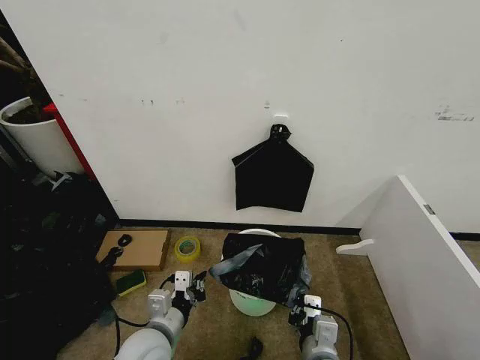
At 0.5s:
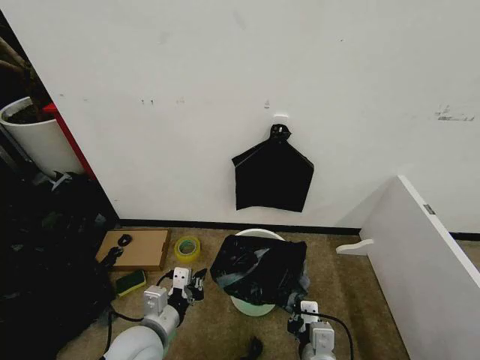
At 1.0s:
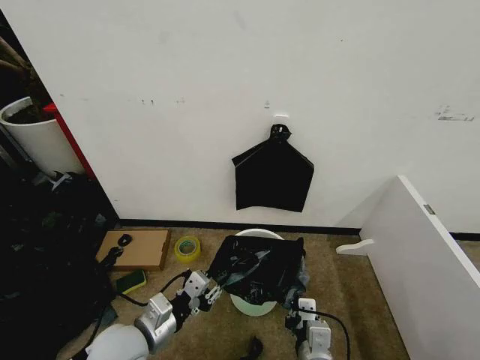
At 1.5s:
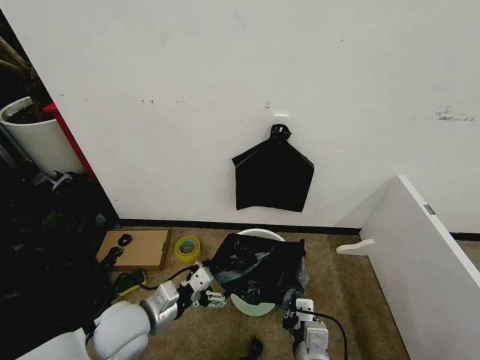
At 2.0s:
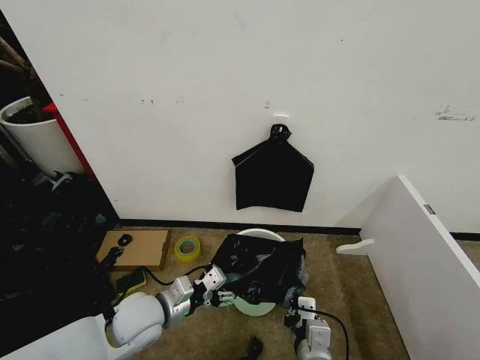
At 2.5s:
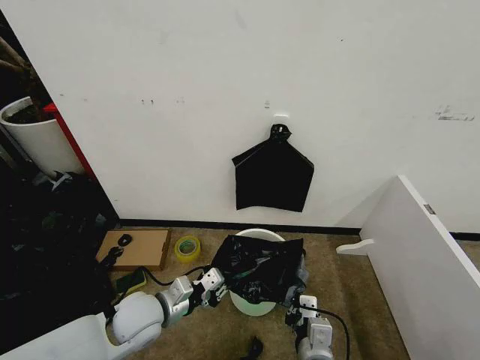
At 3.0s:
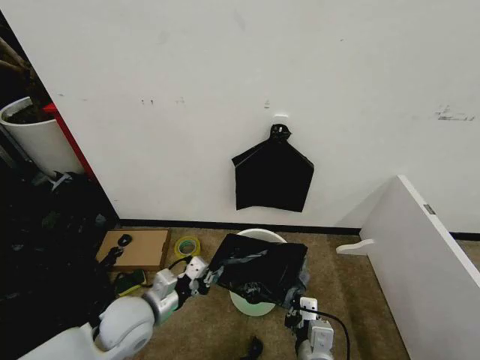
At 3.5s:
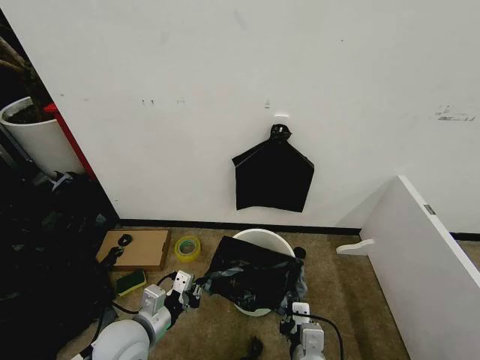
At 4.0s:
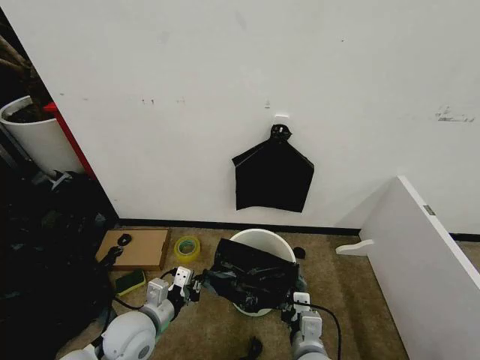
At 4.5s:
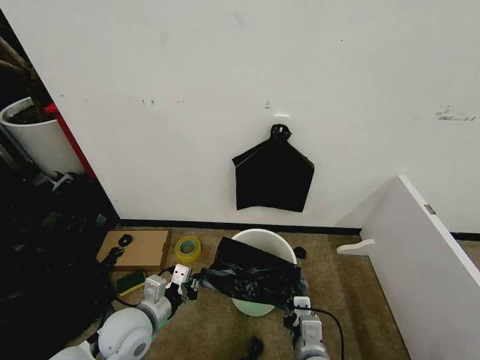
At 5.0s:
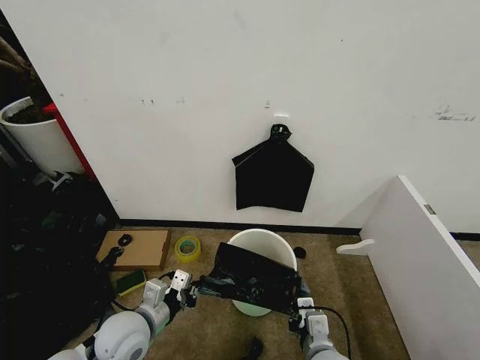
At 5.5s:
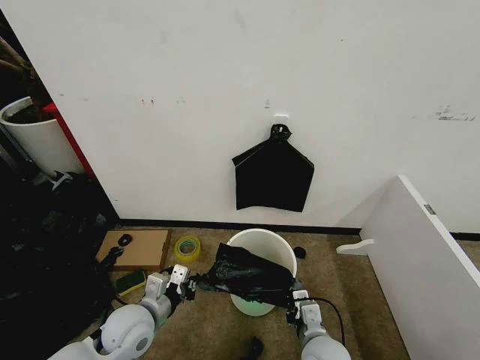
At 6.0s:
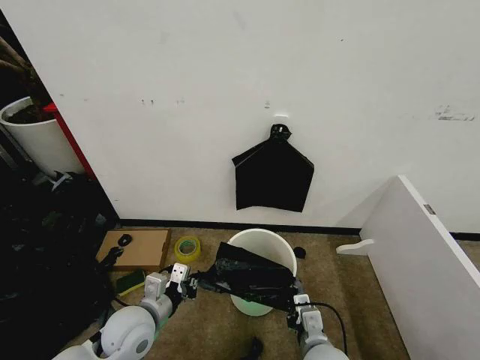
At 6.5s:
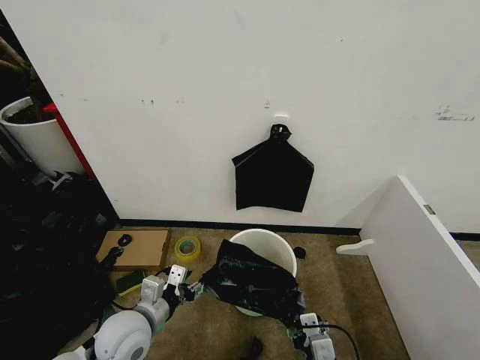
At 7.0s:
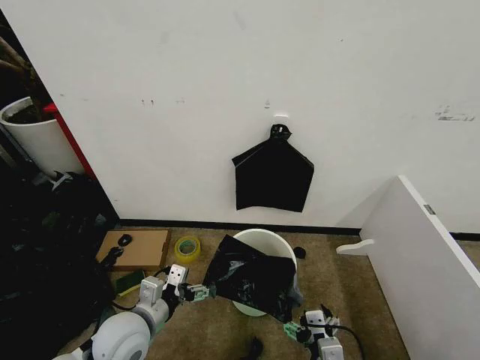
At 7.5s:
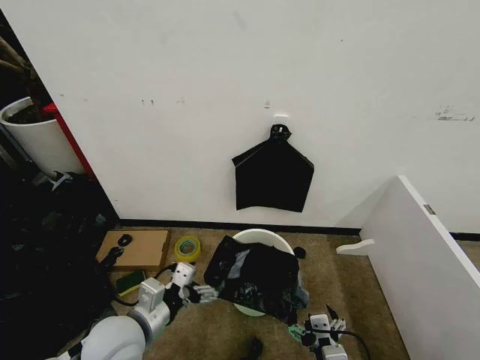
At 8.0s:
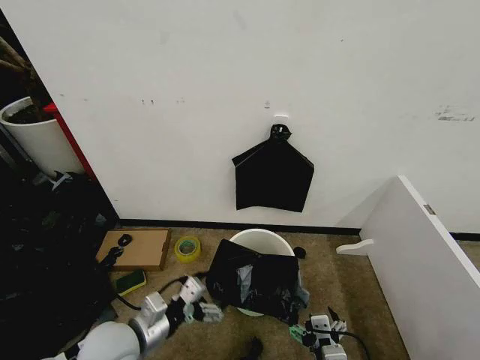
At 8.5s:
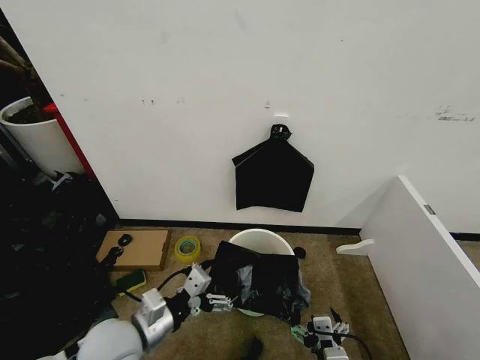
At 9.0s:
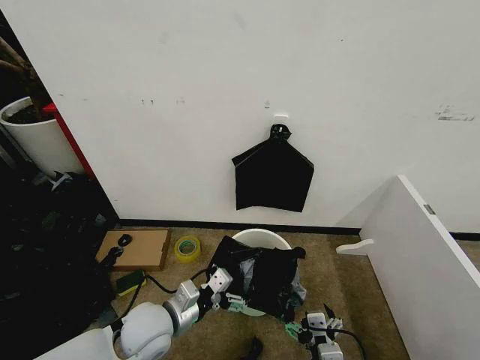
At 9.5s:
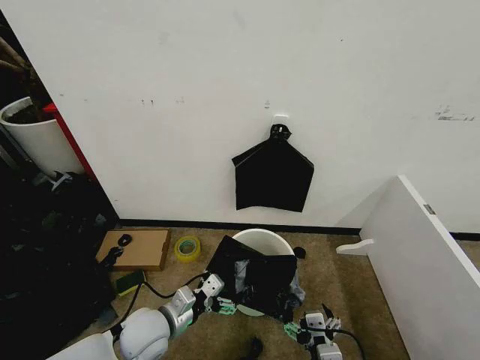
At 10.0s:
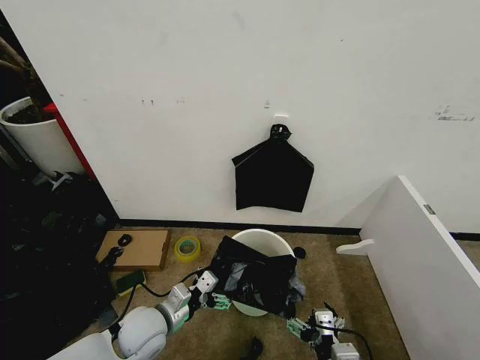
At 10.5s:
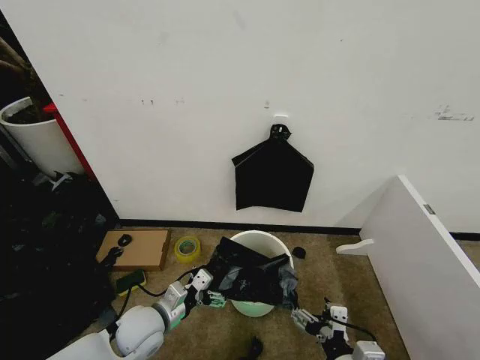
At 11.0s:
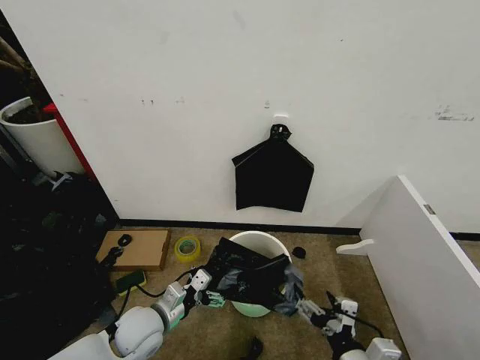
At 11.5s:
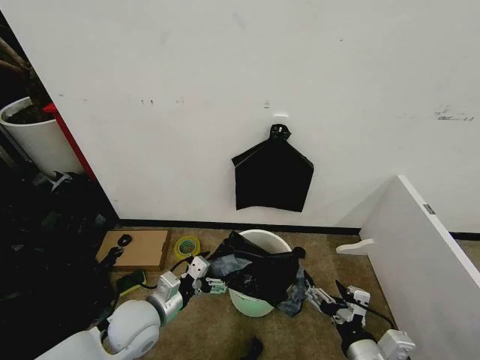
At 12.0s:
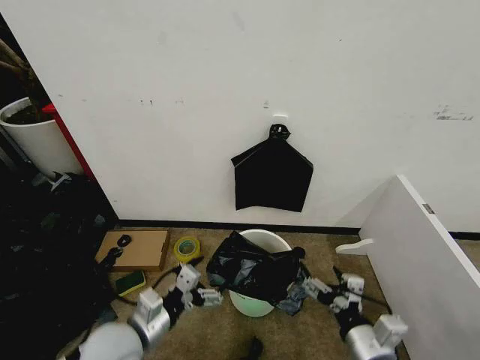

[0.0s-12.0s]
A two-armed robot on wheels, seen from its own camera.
Task of the whole recording: Place the garbage bag over the trash bin.
0.0s to 2.0s: The left gripper travels forward by some 5 cm, and opens.
2.0s to 4.0s: The left gripper closes its fingers.
4.0s to 6.0s: The grippers make only small movements.
6.0s to 8.0s: The right gripper travels backward by some 5 cm, and opens up; the left gripper shifts by some 5 cm, and opens.
8.0s to 10.0s: The left gripper shifts approximately 5 cm downward.
10.0s to 12.0s: The right gripper moves to the right and upward, approximately 10 cm. The left gripper goes about 10 cm upward and backward.

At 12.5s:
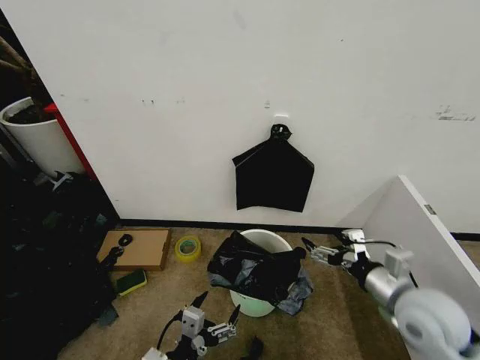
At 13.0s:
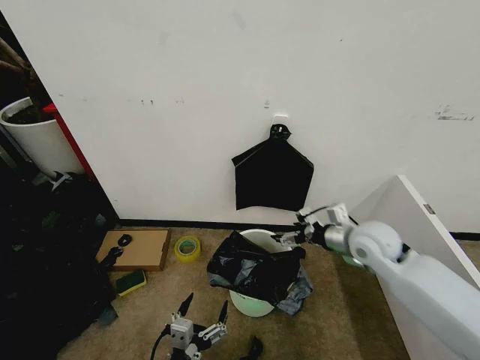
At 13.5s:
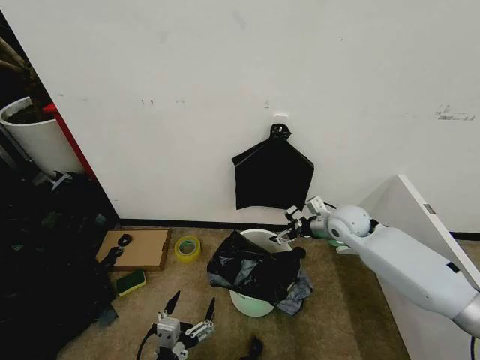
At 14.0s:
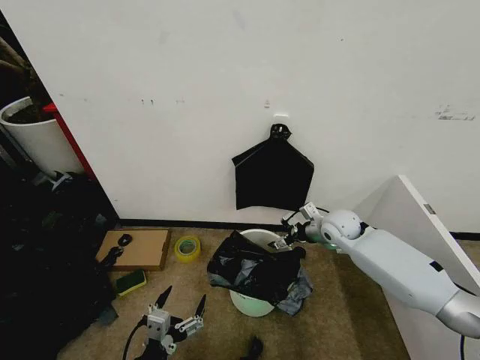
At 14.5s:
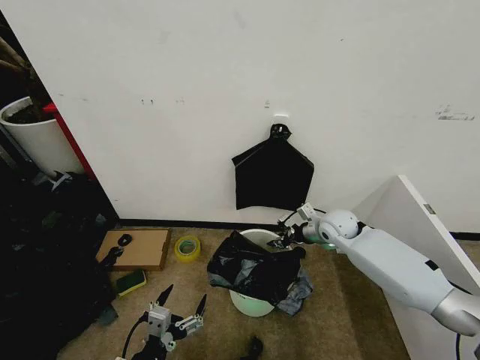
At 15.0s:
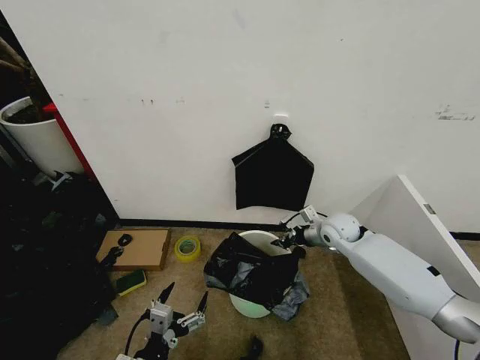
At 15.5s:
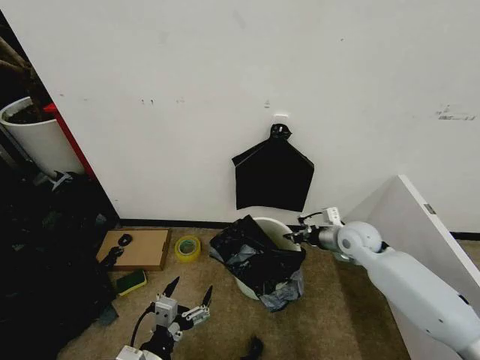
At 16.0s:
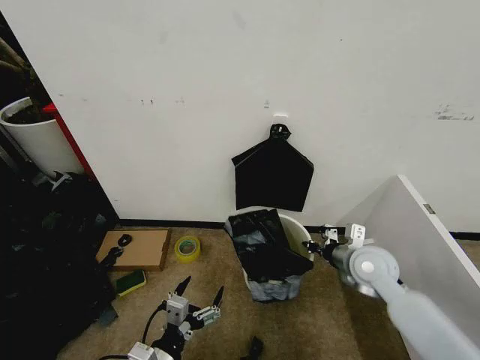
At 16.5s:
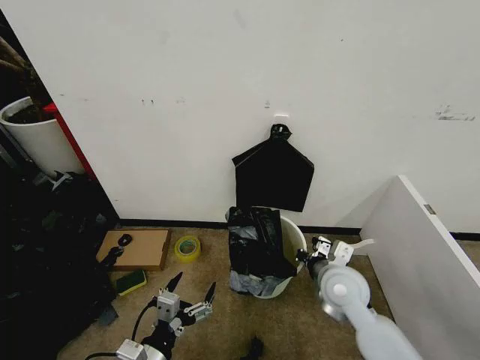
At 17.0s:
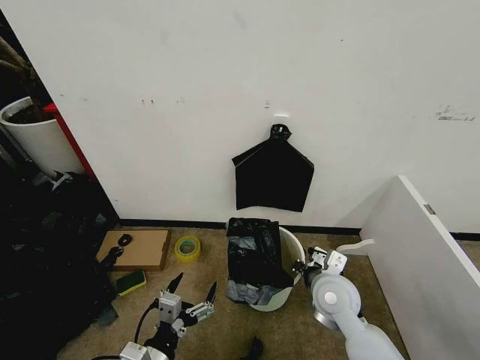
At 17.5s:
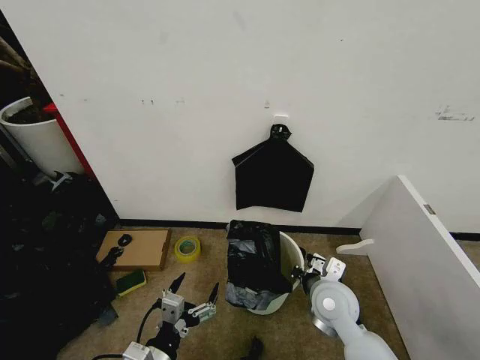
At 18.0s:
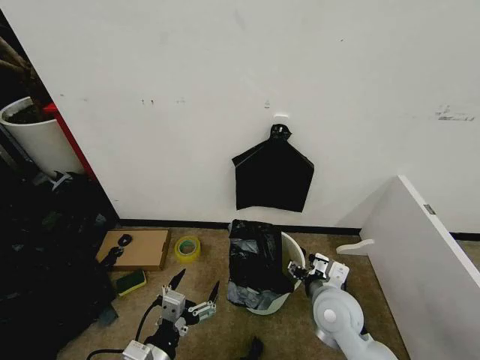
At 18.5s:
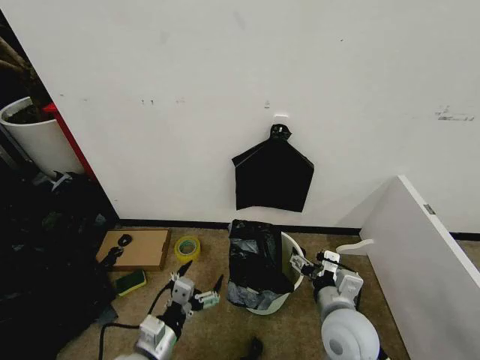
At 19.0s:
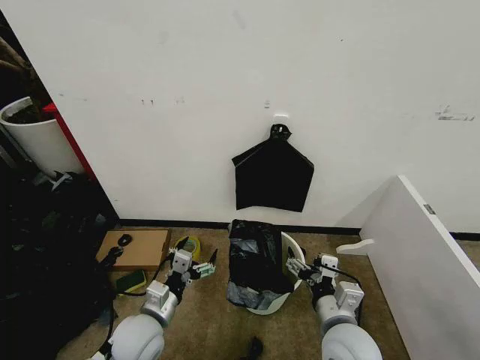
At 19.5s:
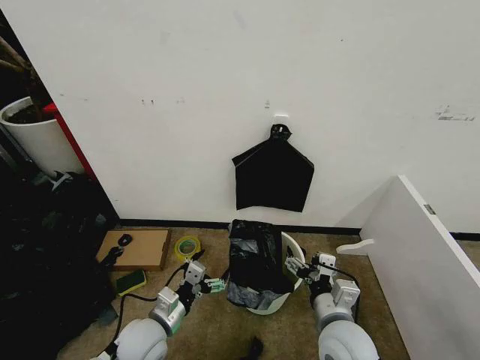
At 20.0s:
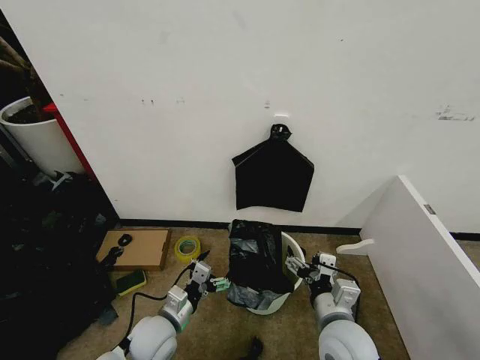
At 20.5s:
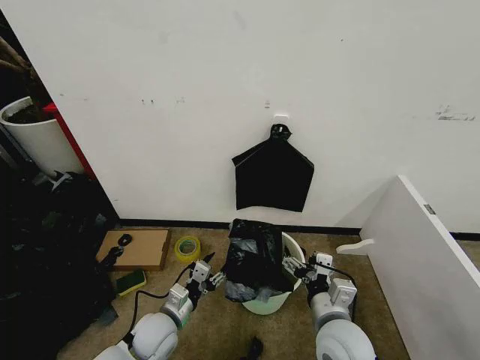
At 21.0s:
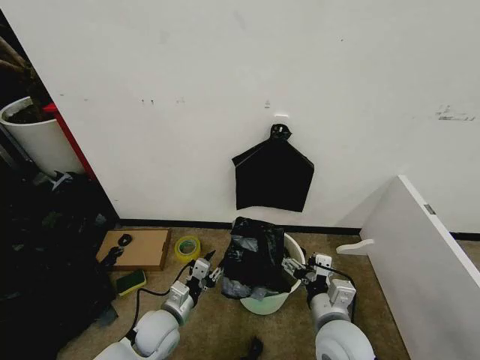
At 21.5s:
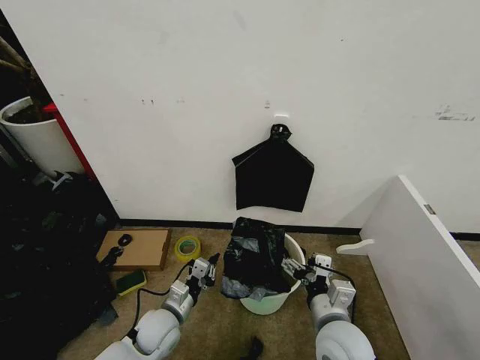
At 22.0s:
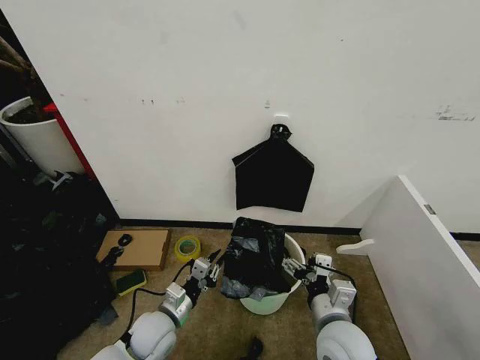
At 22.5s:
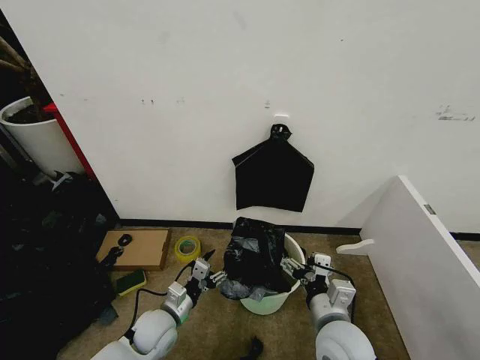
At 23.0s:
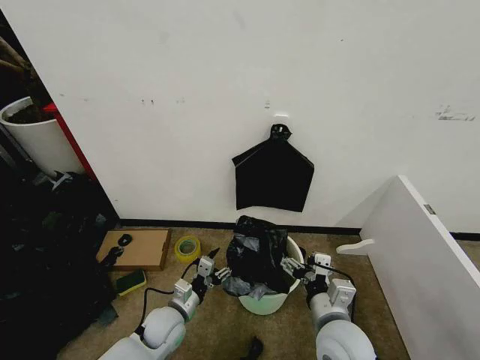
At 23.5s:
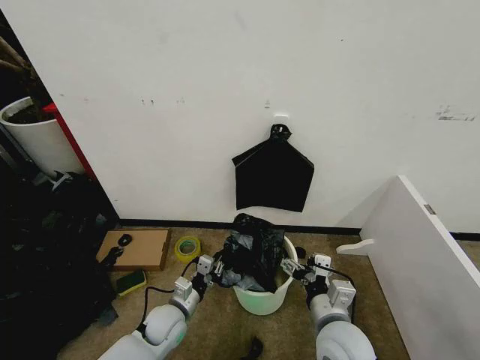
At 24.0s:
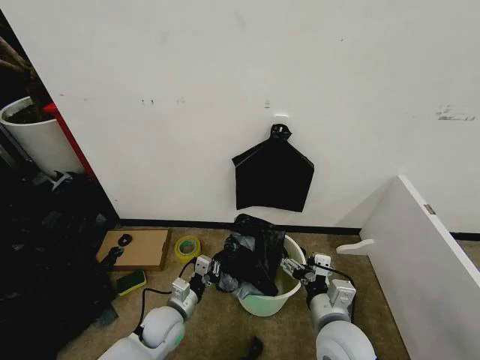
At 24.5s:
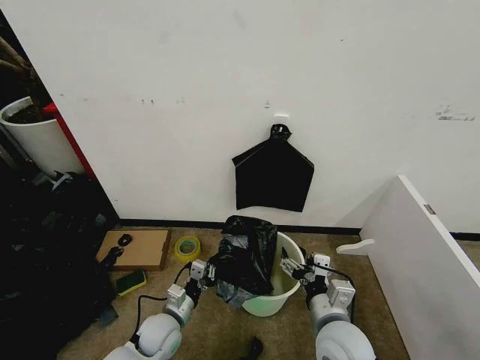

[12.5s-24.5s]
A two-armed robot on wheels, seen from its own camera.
Task of the whole recording: Place the garbage bag over the trash bin.
12.5s to 14.5s: The left gripper ends up approximately 5 cm from where it was. The right gripper goes approximately 25 cm forward, and closes its fingers.
14.5s to 16.5s: The right gripper travels backward by approximately 15 cm, and closes up.
16.5s to 18.5s: The right gripper goes some 10 cm backward, and opens its fingers.
18.5s to 20.5s: The left gripper moves forward and downward, approximately 10 cm, and closes up.
20.5s to 22.5s: The left gripper closes, then opens again.
22.5s to 24.5s: The left gripper closes.

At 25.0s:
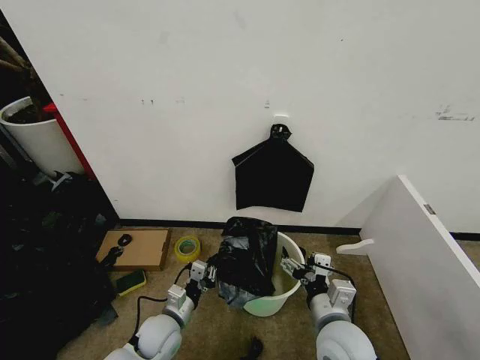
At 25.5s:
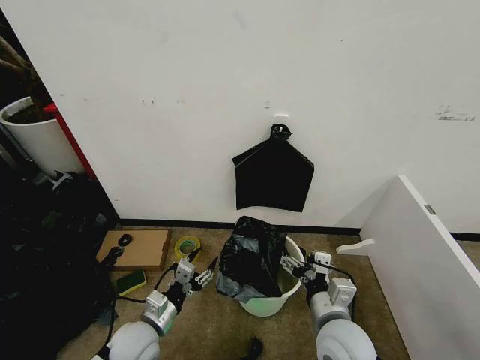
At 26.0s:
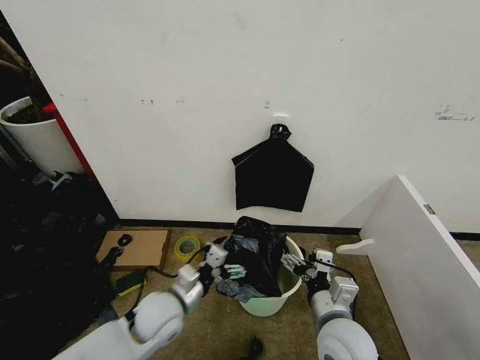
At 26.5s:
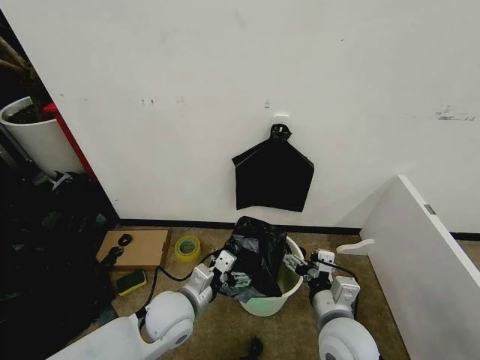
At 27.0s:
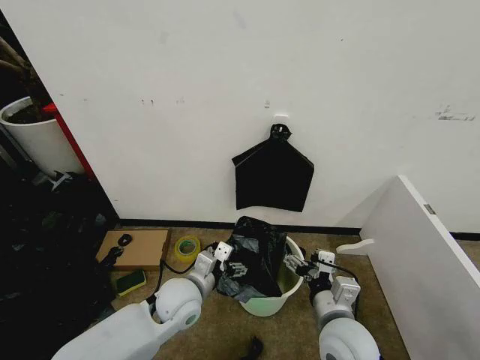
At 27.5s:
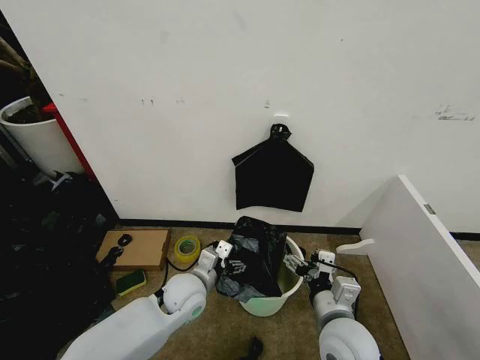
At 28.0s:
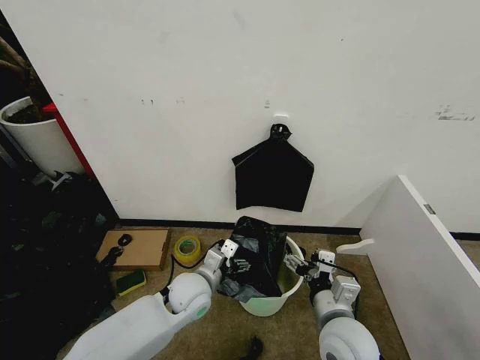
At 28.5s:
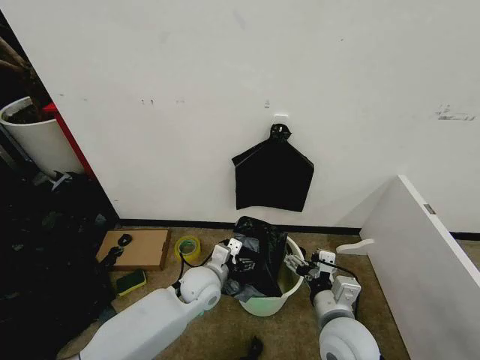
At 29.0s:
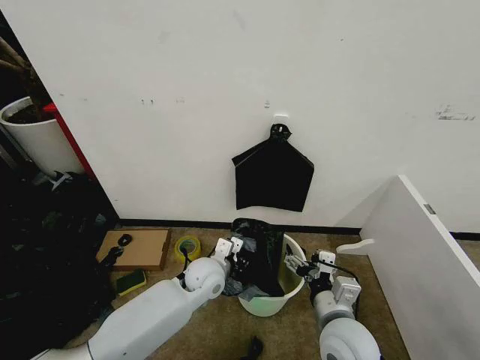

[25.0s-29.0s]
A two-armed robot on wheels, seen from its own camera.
Task of the whole recording: Place the garbage bag over the trash bin.
25.0s to 27.0s: The left gripper goes about 15 cm upward and to the right, and opens.
27.0s to 29.0s: The left gripper is displaced forward by approximately 5 cm, and closes its fingers.
